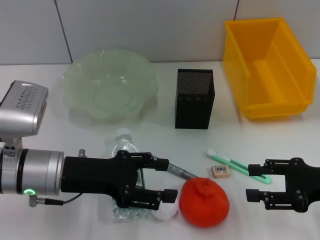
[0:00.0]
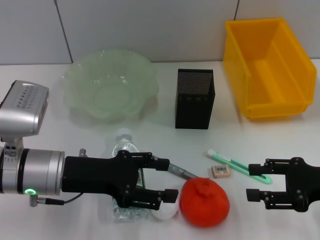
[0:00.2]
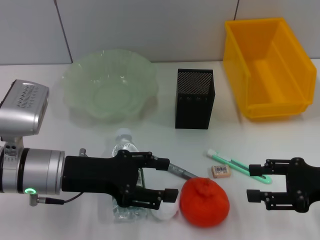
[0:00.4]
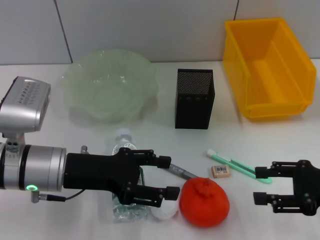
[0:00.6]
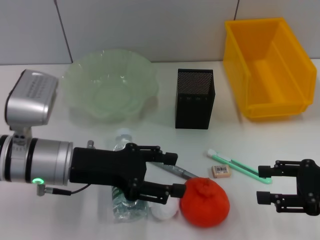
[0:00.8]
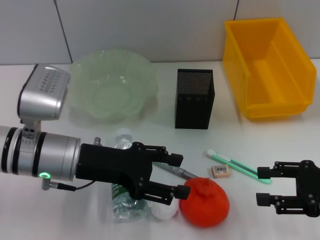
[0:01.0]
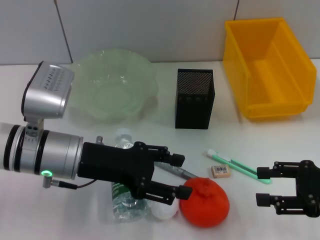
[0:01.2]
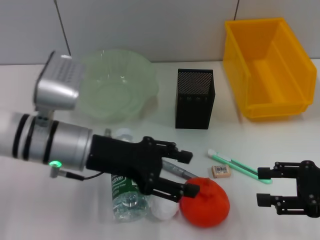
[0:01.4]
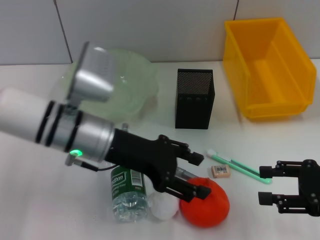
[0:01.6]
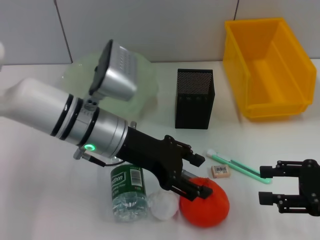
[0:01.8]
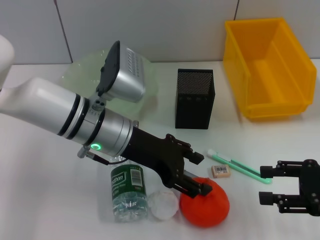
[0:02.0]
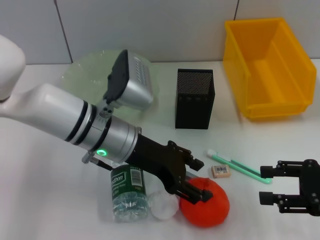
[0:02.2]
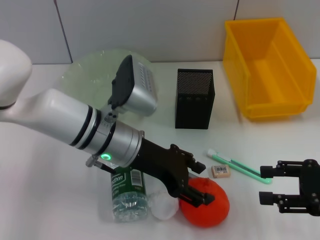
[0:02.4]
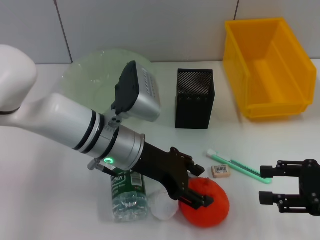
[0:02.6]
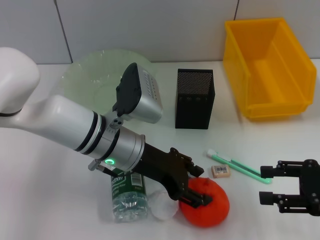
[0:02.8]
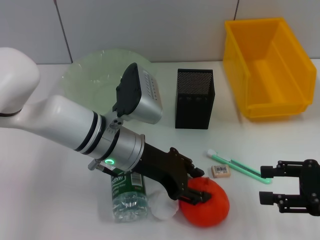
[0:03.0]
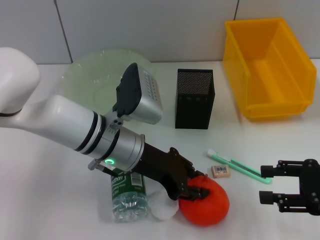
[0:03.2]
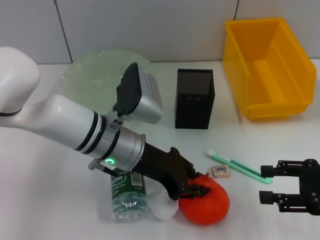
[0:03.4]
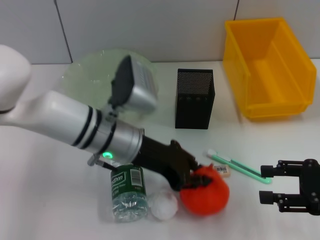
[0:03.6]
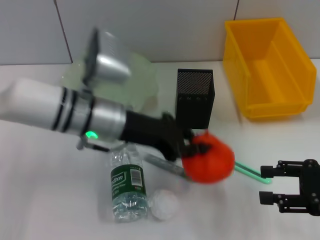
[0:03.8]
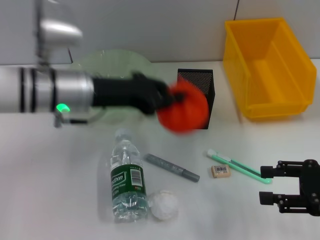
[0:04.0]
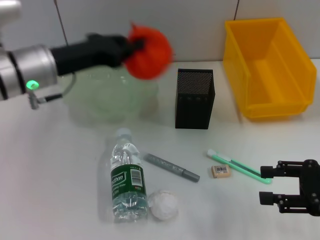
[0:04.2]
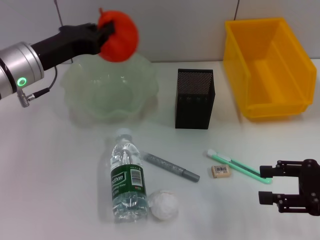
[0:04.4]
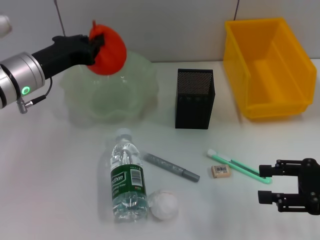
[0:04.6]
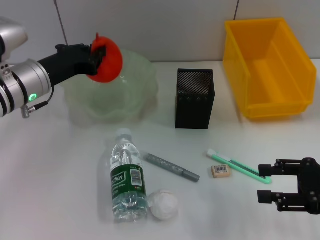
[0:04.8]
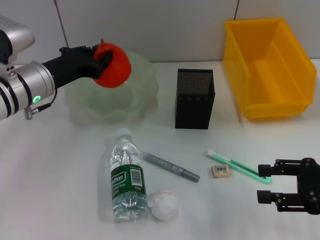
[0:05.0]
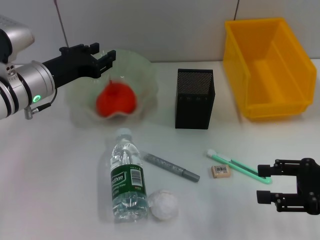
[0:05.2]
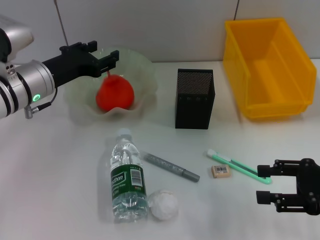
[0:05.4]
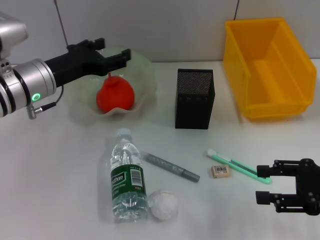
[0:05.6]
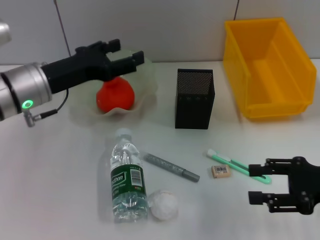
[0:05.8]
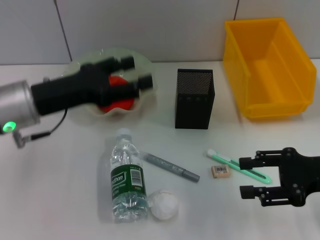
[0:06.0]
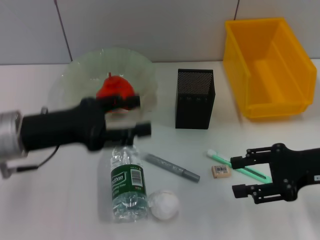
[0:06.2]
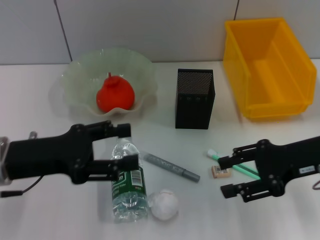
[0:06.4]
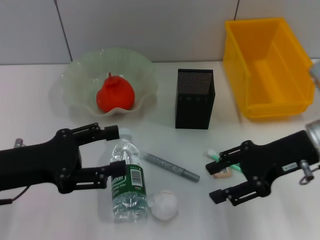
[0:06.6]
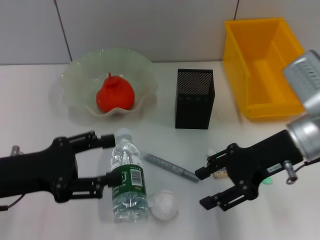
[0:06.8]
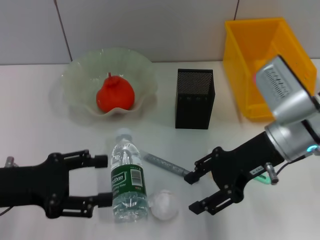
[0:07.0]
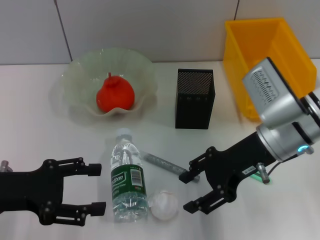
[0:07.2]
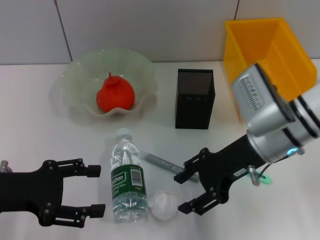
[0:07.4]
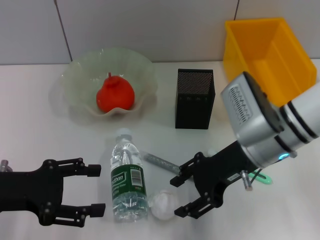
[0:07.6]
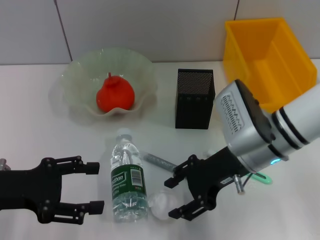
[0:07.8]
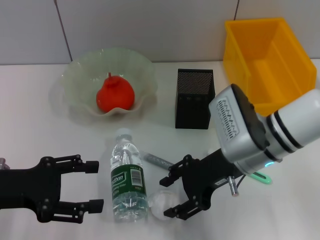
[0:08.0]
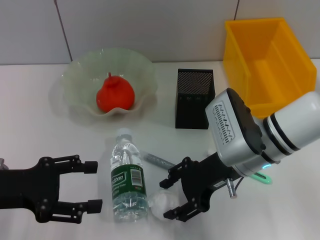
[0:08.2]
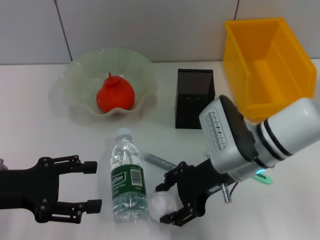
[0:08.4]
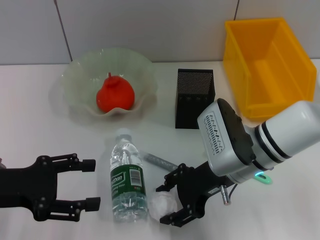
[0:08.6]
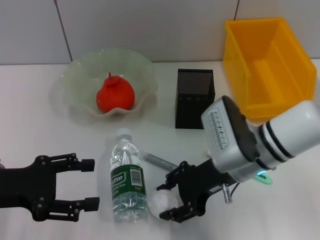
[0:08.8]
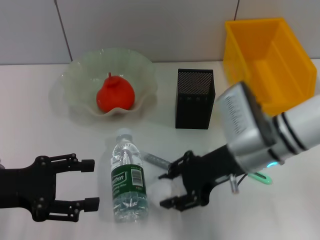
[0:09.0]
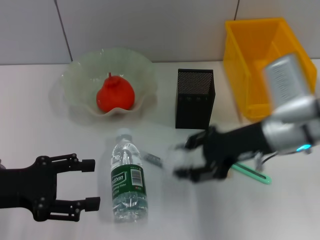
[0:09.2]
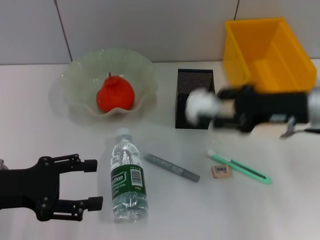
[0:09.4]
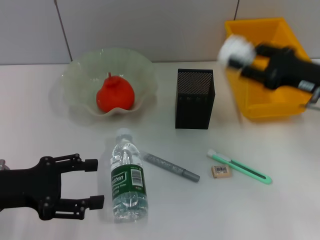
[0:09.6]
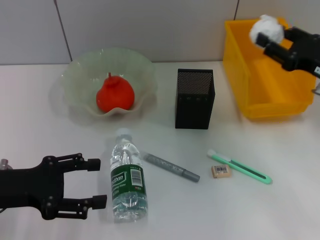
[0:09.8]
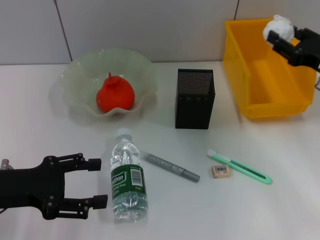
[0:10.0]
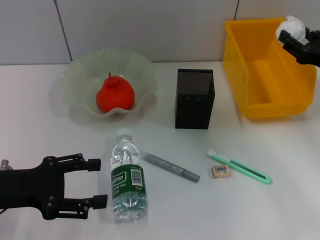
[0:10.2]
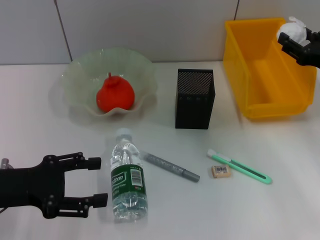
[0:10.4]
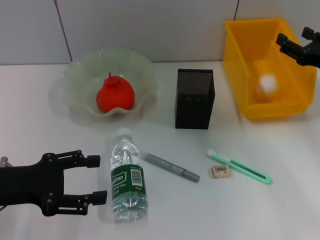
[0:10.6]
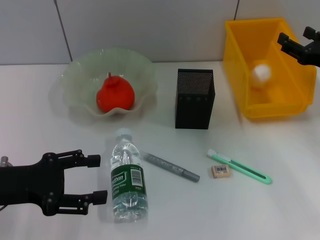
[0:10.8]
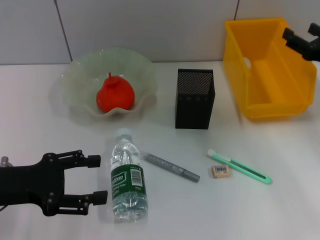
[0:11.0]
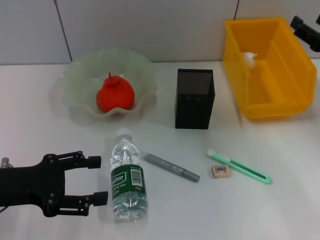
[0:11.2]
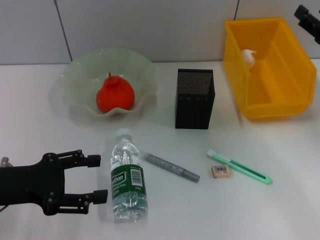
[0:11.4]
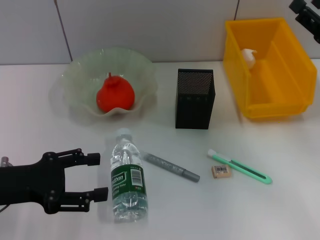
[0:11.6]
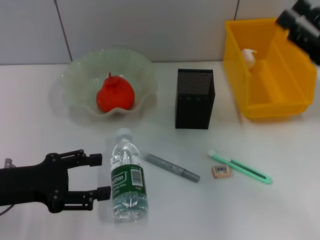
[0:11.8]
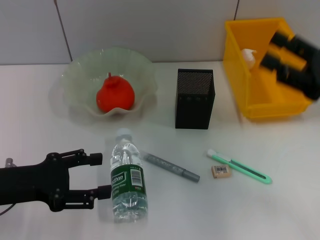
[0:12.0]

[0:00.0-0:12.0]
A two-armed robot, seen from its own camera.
Step, 0:00.0 to 0:03.2: Grab the orange with the left hand.
Step, 0:03.4 to 0:05.2: Place the orange into the fruit bowl with the left hand.
Step, 0:05.4 to 0:08.6: Grab the paper ball with the right hand.
Step, 0:08.8 to 0:10.6: Place the paper ball into the trash can with the right hand.
0:00.0 to 0:01.6: The left gripper is displaced to the right by about 5 cm.
0:01.6 to 0:03.0: The left gripper moves about 5 cm.
0:03.0 to 0:04.4: The left gripper heads to the left, covering roughly 15 cm, and closes its fingers.
0:04.4 to 0:06.0: The left gripper shifts about 5 cm backward, and opens up.
0:06.0 to 0:07.6: The left gripper moves backward and to the left, about 10 cm, while the right gripper heads to the left and forward, covering some 15 cm.
0:07.6 to 0:09.0: The grippers make only small movements.
0:09.0 to 0:10.4: The right gripper goes some 20 cm to the right.
0:10.4 to 0:12.0: The right gripper heads backward, covering roughly 5 cm.

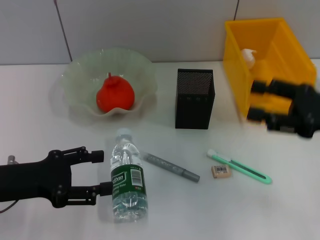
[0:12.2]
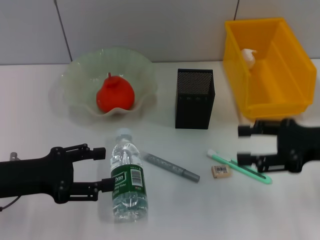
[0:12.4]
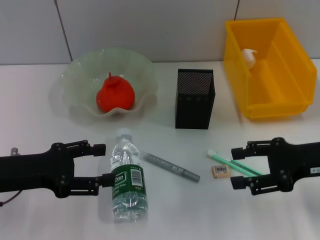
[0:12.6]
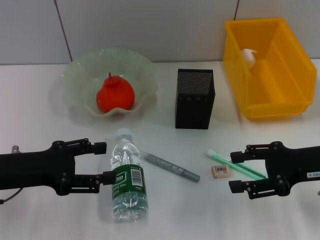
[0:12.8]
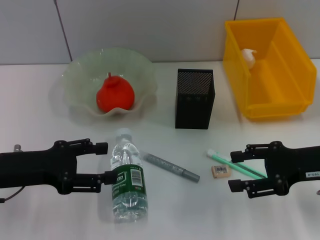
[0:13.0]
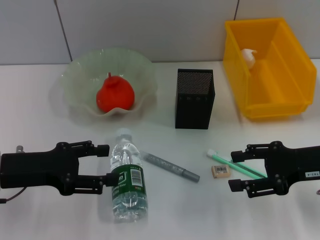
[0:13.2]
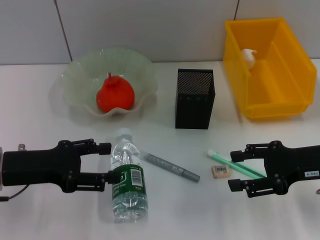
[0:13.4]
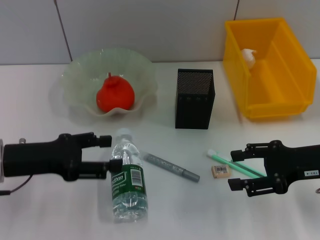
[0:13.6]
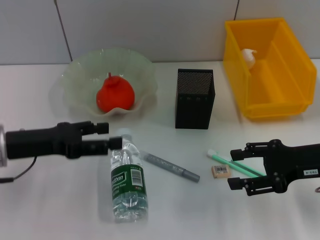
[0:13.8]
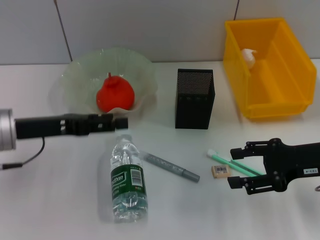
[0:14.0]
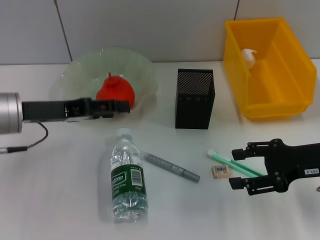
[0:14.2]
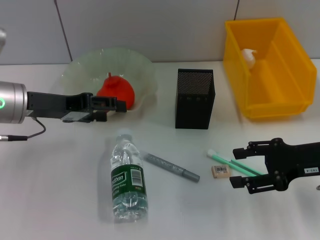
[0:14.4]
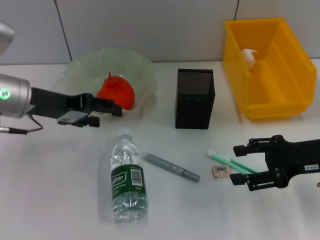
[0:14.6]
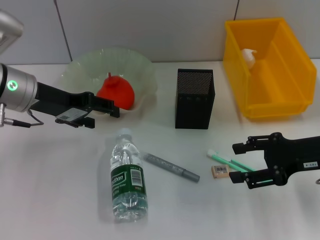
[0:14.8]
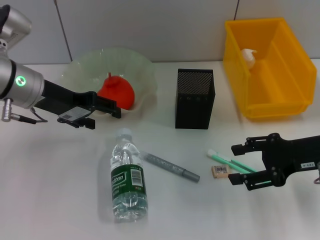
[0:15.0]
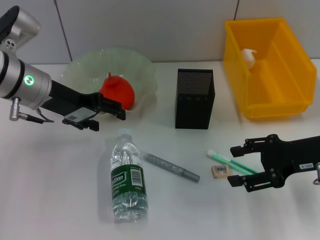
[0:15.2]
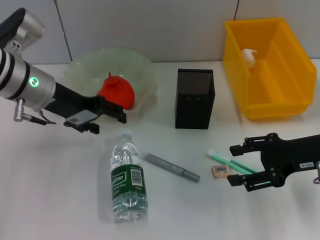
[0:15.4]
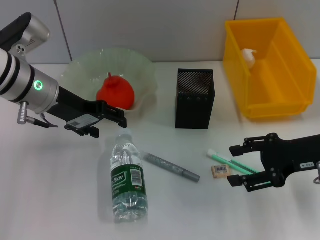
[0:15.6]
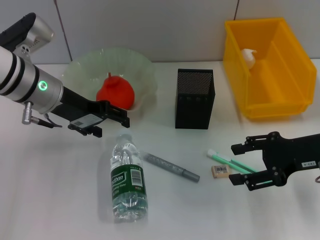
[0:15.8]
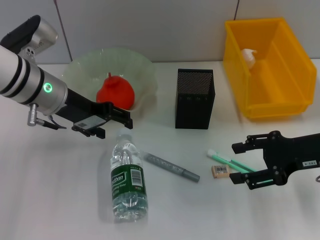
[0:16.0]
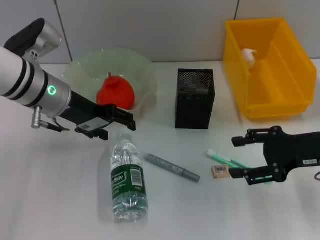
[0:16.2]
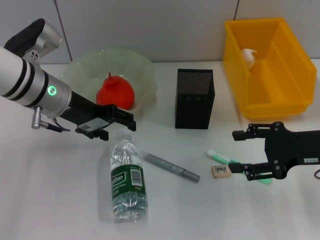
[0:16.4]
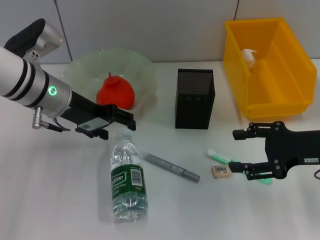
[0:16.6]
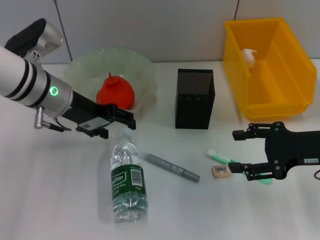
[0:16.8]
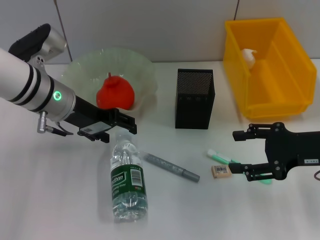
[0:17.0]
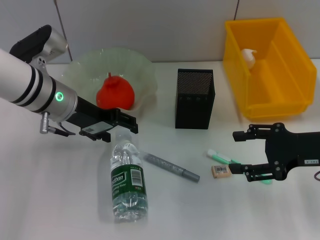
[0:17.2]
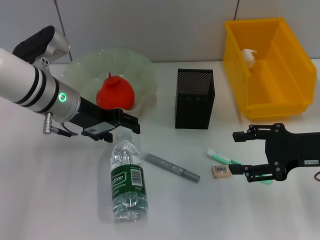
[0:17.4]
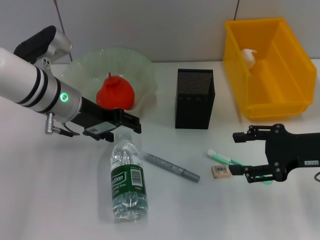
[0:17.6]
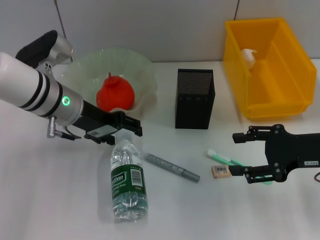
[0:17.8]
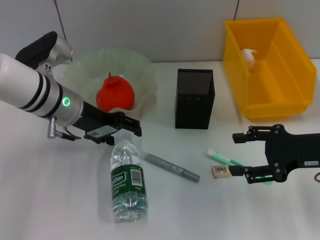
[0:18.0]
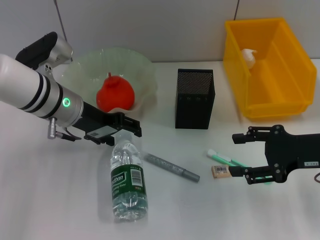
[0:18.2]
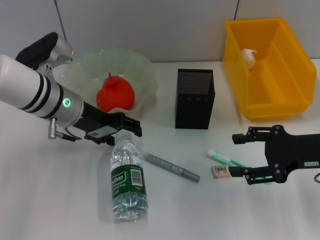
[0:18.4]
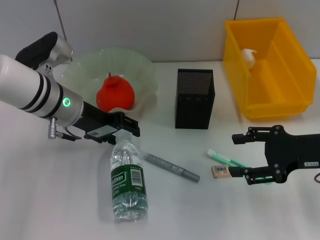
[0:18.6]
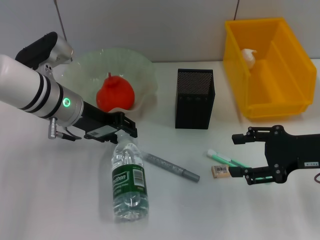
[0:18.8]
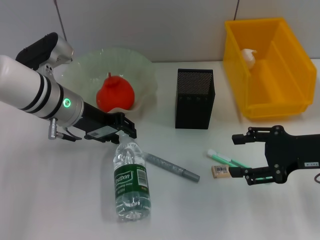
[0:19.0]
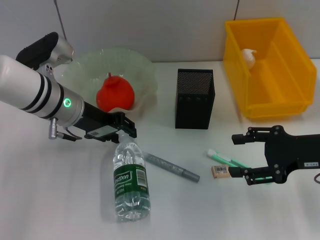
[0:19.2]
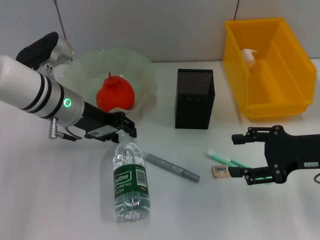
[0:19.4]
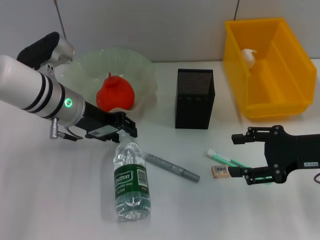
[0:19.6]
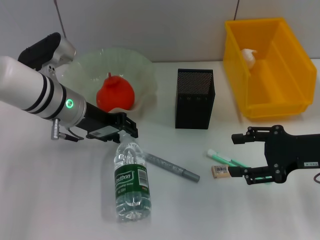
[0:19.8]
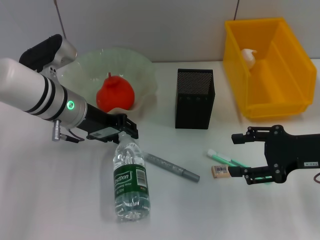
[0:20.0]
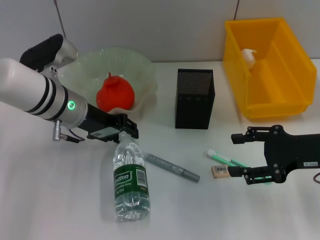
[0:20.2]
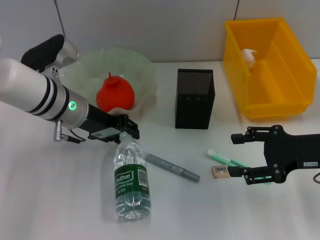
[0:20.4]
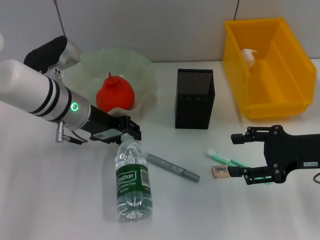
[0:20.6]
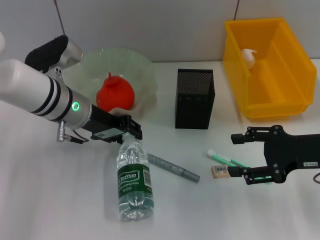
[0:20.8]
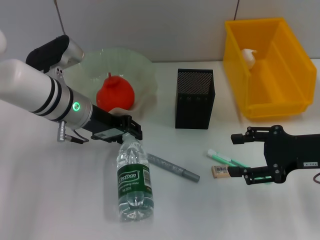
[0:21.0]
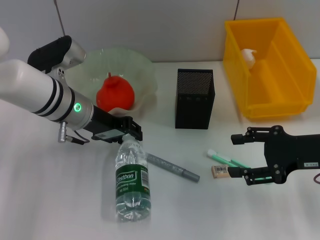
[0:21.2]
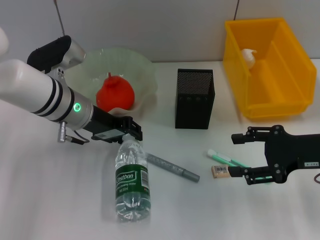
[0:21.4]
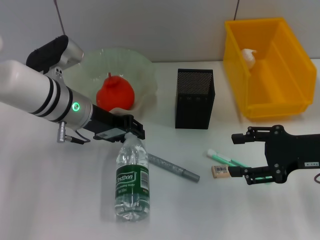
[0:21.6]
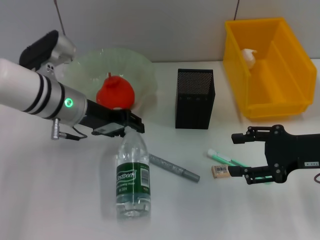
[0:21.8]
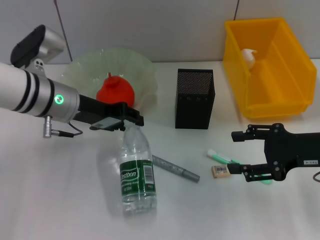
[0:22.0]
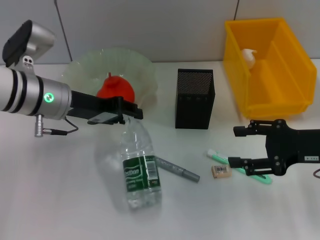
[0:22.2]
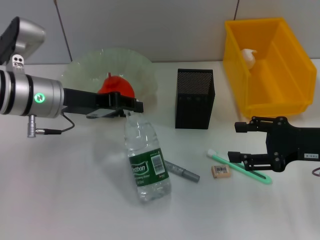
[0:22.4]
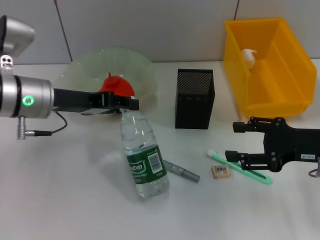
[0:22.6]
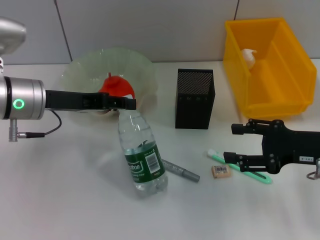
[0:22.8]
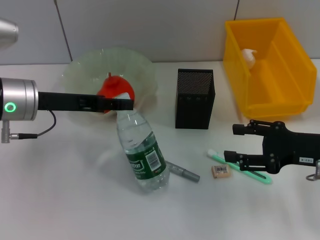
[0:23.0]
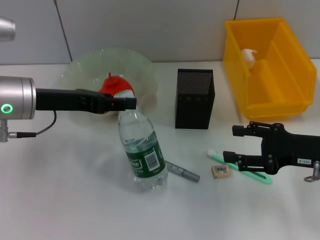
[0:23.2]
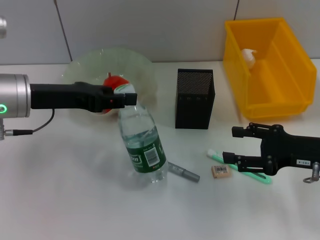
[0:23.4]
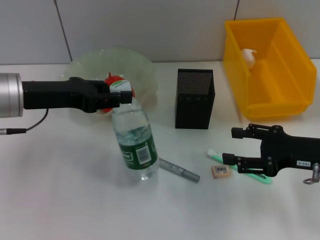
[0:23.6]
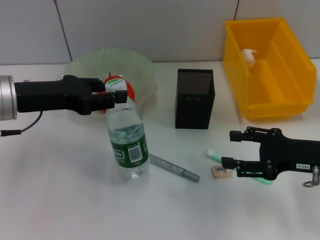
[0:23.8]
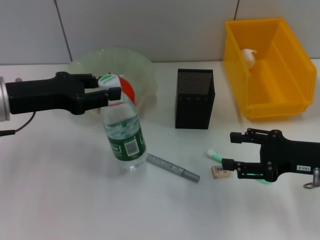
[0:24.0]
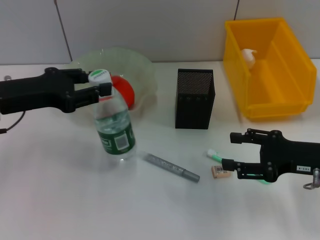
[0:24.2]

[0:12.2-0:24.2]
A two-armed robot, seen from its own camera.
Step, 0:12.2 to 0:19.8: Grab the water bottle with the left hand.
0:12.2 to 0:13.8: The left gripper shifts by approximately 5 cm.
0:13.8 to 0:15.2: The left gripper moves forward and to the right, about 10 cm.
0:15.2 to 0:18.2: The grippers make only small movements.
0:18.2 to 0:19.8: The left gripper closes.
0:19.8 to 0:21.2: Both grippers stay put.
0:21.2 to 0:22.6: The left gripper shifts roughly 5 cm to the left.
0:22.6 to 0:24.2: The left gripper is displaced to the left by some 5 cm.
